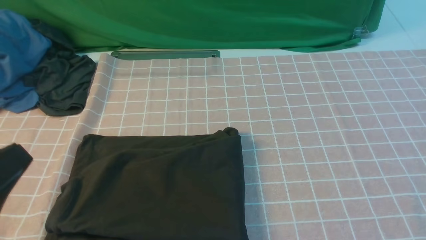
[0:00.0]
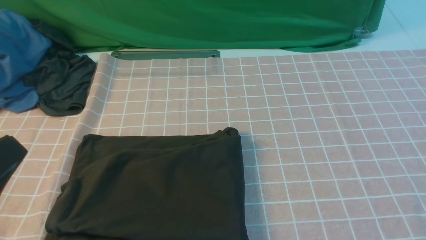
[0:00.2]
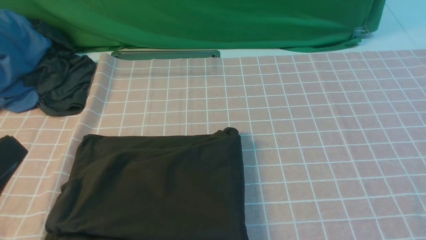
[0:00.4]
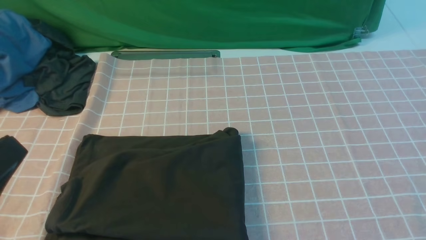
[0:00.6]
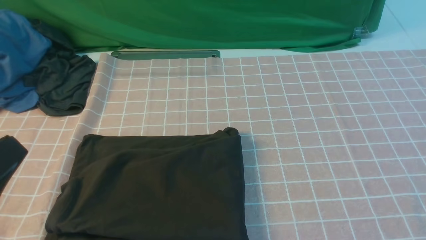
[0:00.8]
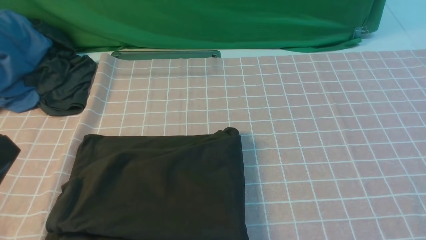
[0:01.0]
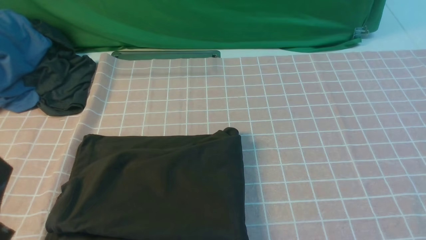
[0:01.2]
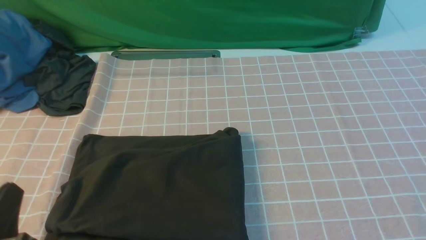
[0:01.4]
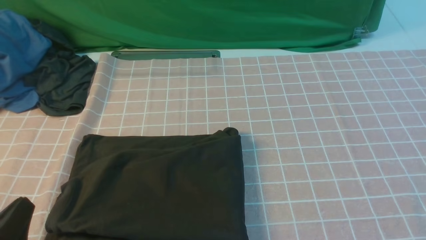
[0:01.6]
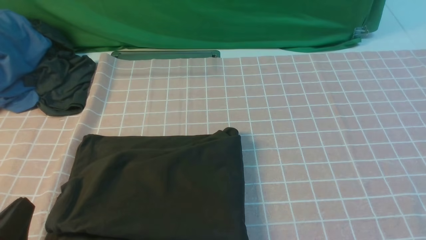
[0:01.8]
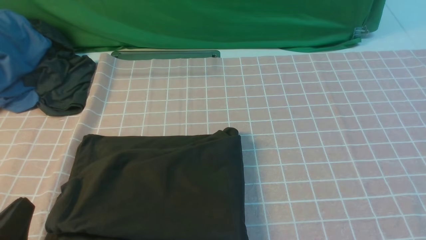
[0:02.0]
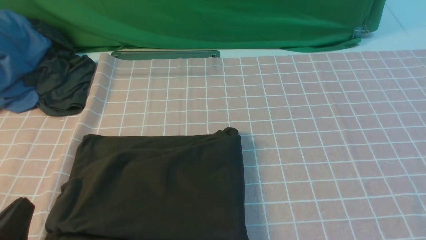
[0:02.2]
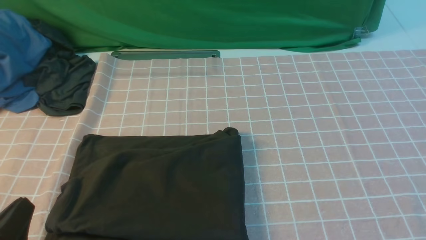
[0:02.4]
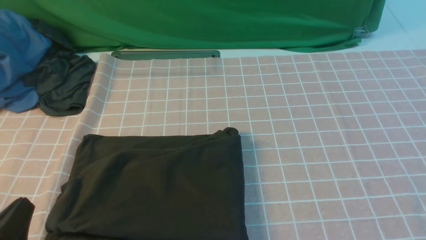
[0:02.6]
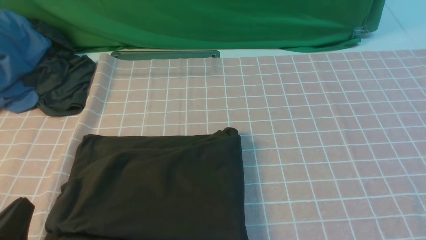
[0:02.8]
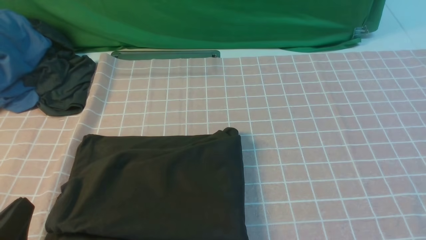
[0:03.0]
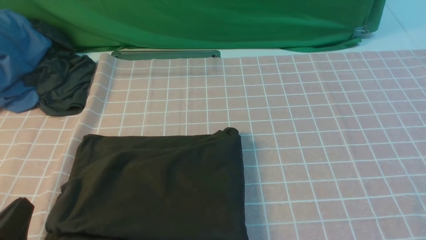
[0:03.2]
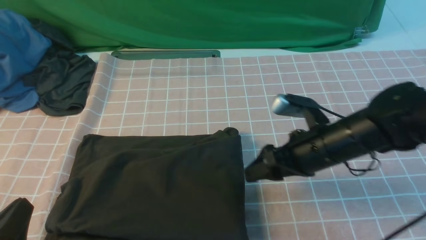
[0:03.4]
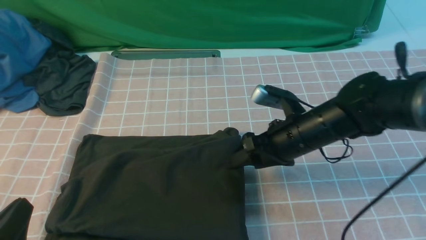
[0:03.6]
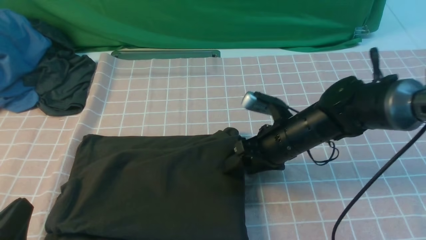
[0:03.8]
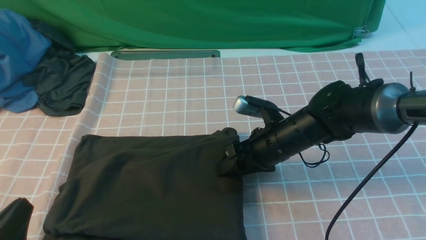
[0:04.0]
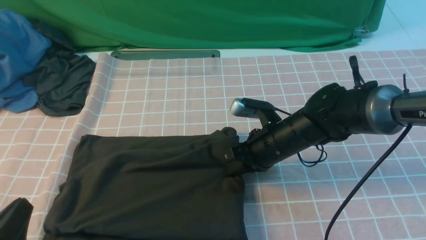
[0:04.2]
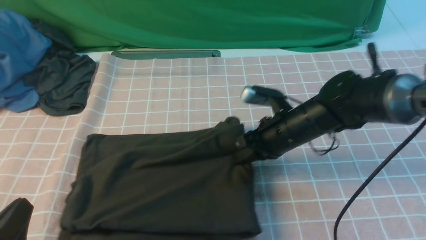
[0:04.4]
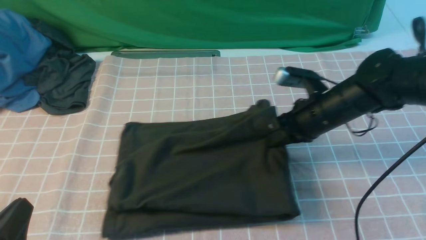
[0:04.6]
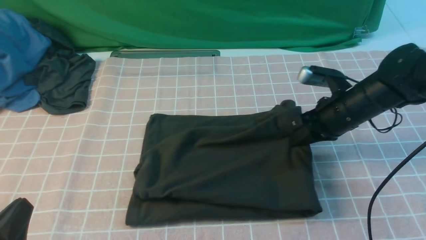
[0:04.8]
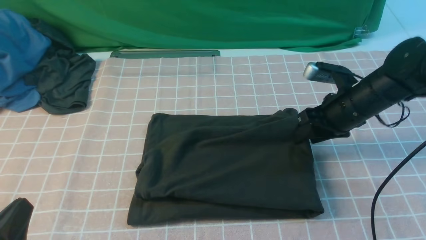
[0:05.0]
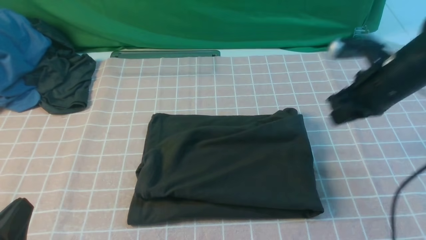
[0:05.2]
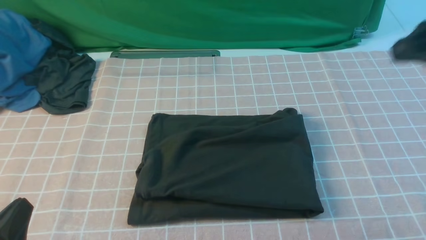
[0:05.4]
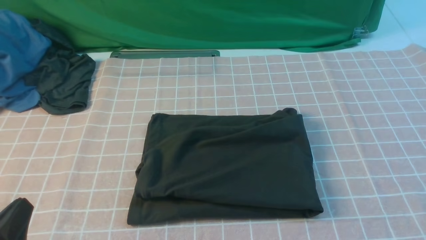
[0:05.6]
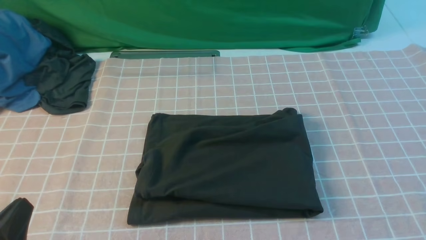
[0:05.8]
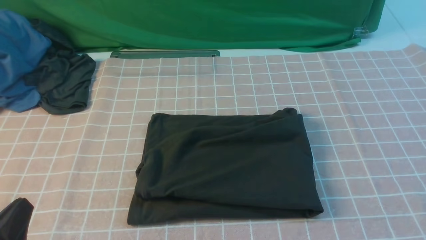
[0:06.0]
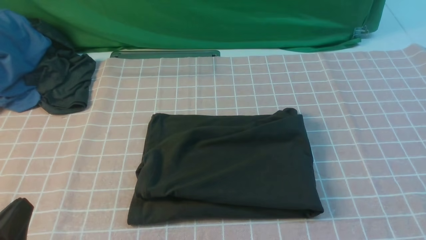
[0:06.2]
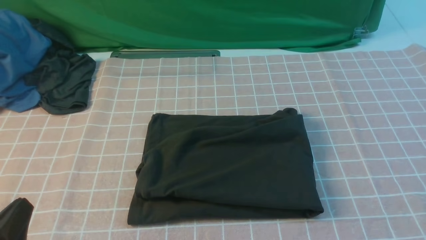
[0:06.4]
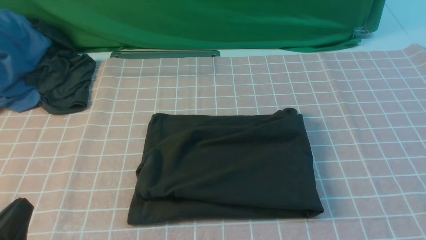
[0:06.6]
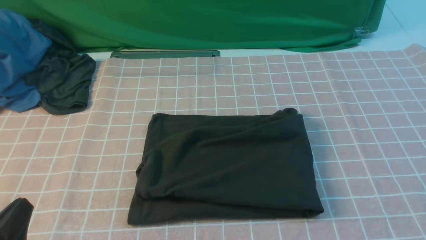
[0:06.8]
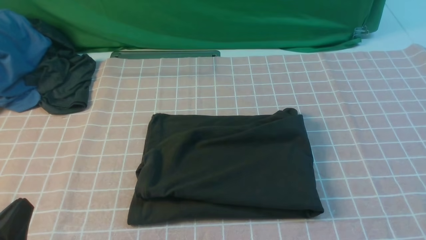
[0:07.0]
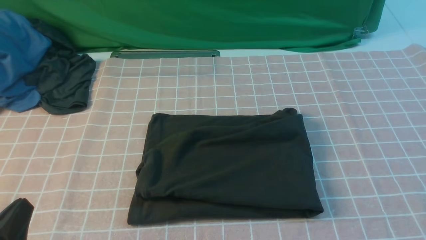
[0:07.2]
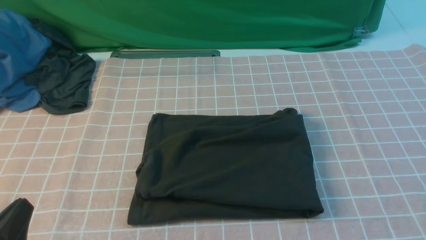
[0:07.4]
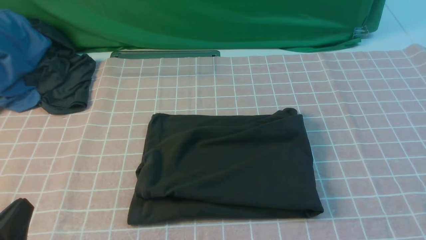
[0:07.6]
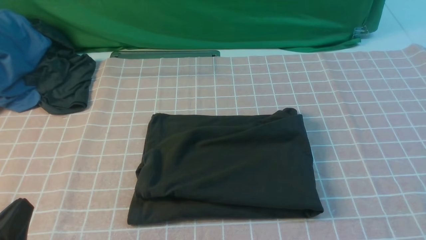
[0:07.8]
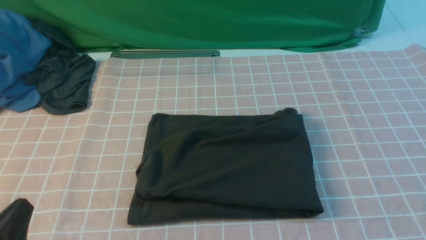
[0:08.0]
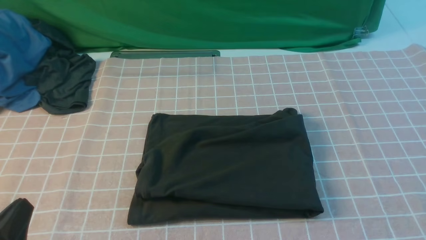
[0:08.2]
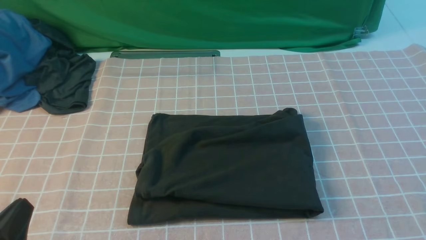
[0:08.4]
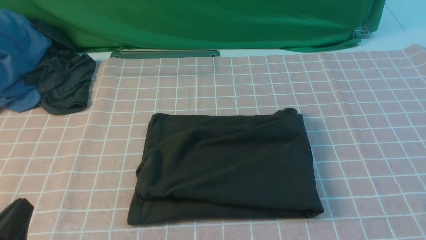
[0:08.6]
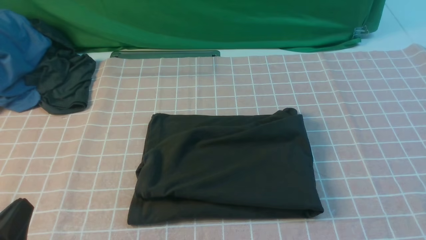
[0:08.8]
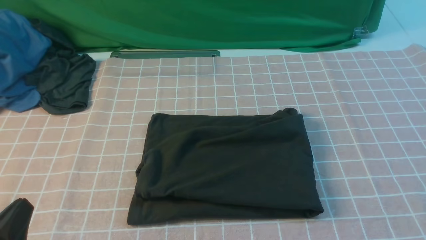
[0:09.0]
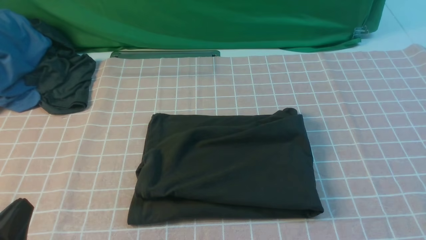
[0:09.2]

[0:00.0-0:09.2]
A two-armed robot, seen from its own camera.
0:00.0 to 0:01.6: The left gripper shifts some 10 cm downward.
0:03.0 to 0:04.6: The right gripper goes approximately 30 cm forward and to the left, and opens, then closes again.
0:04.6 to 0:06.2: The right gripper goes some 35 cm backward and upward.
0:07.6 to 0:09.2: The two grippers keep their place.
